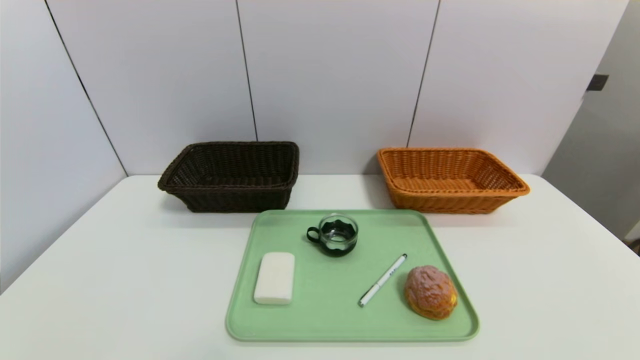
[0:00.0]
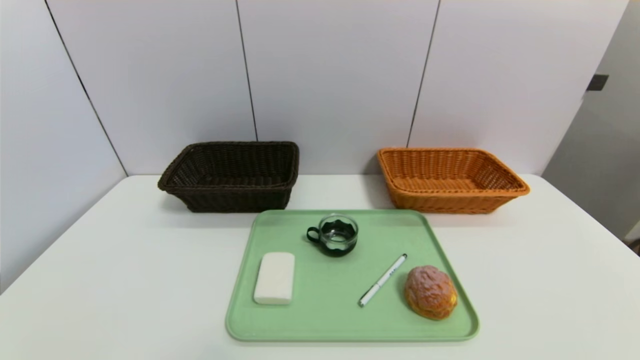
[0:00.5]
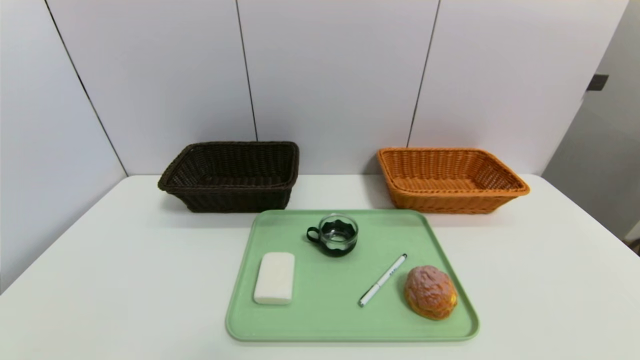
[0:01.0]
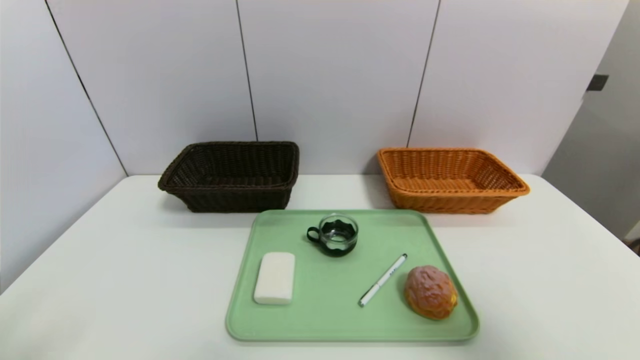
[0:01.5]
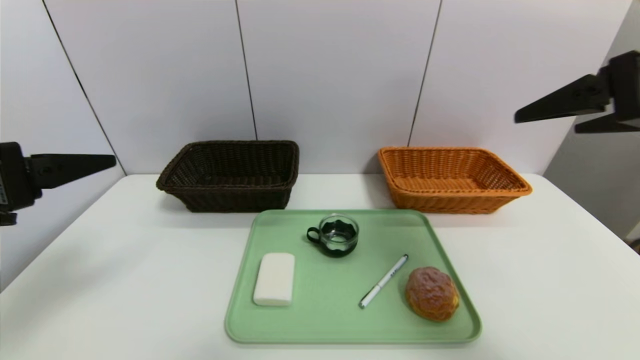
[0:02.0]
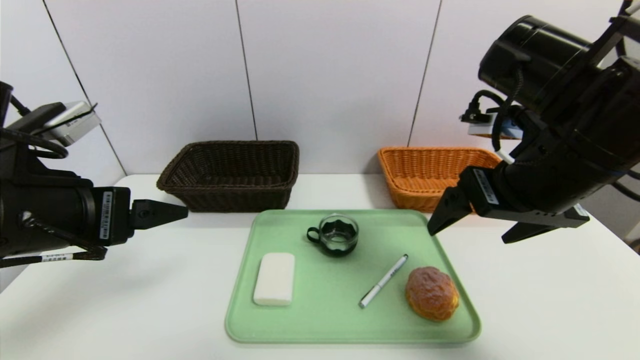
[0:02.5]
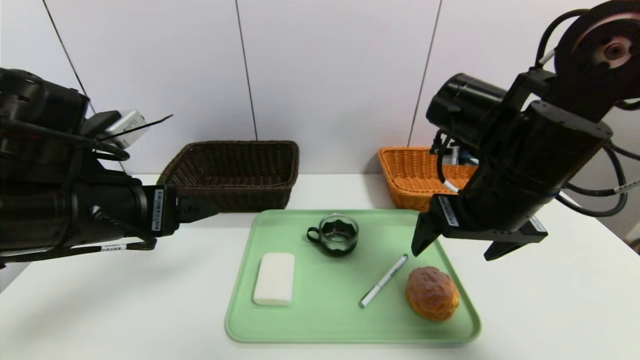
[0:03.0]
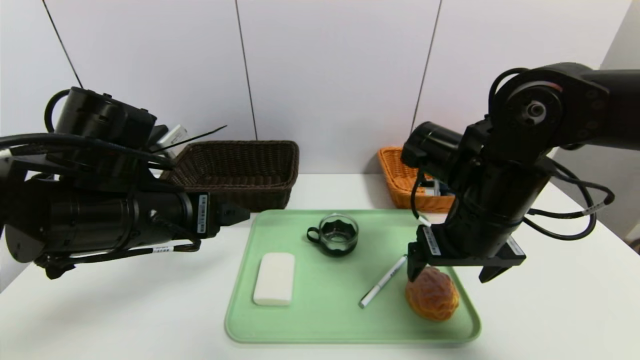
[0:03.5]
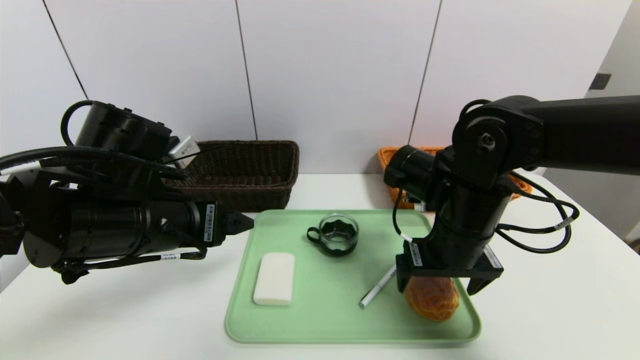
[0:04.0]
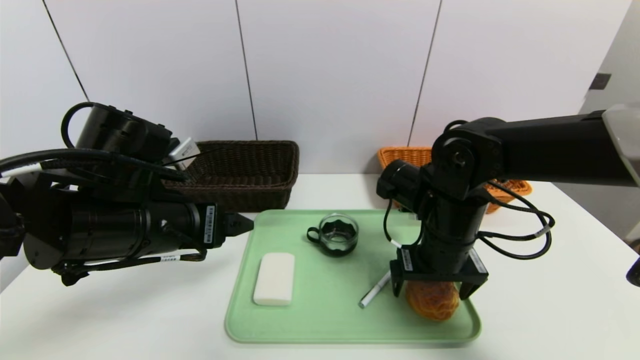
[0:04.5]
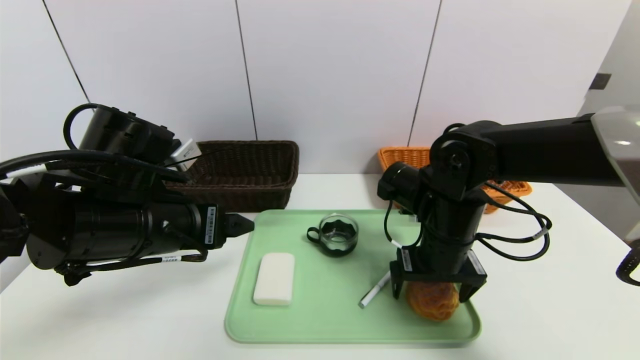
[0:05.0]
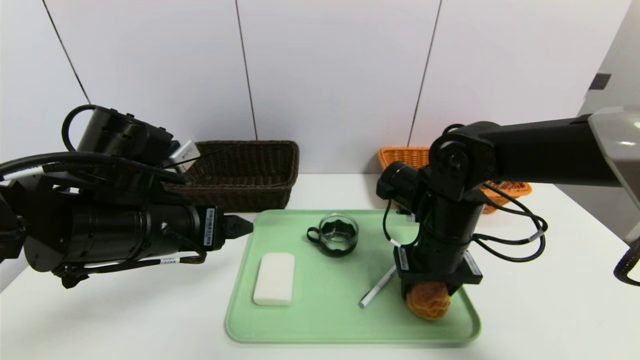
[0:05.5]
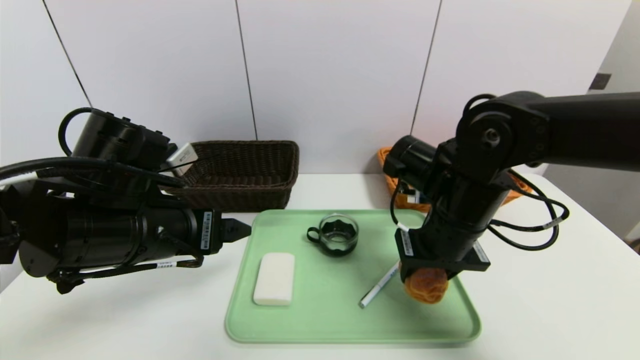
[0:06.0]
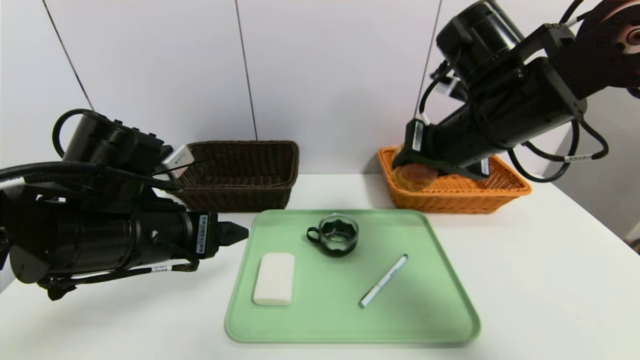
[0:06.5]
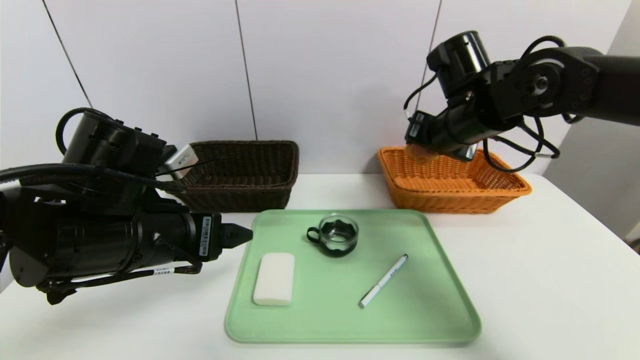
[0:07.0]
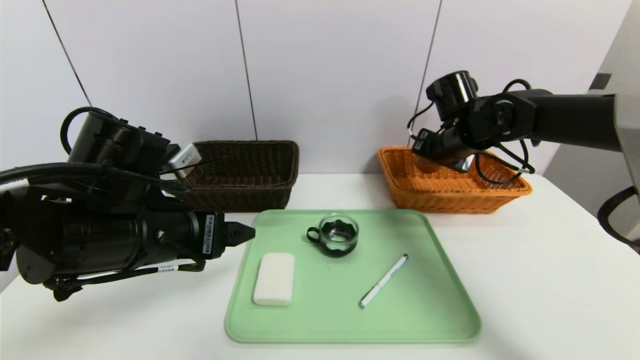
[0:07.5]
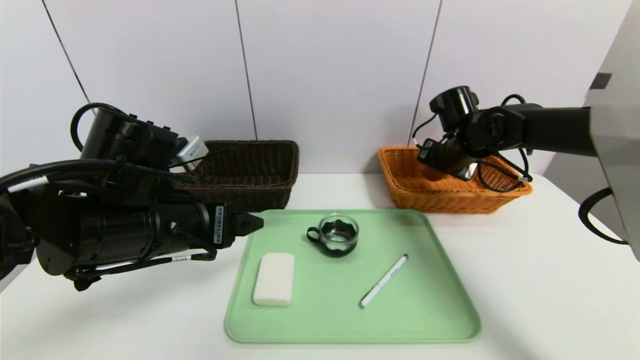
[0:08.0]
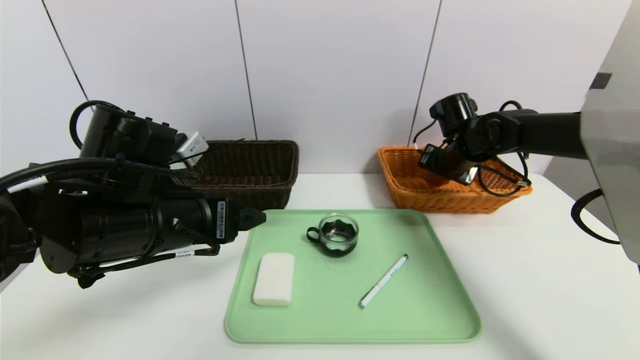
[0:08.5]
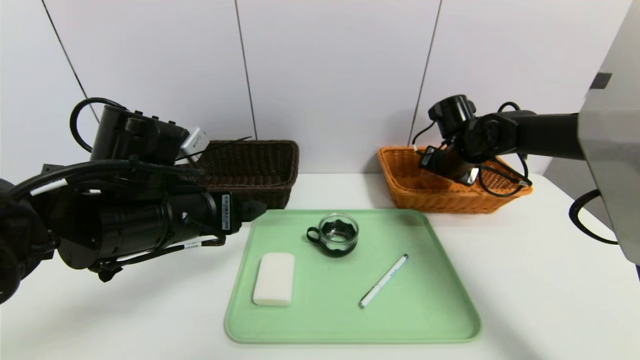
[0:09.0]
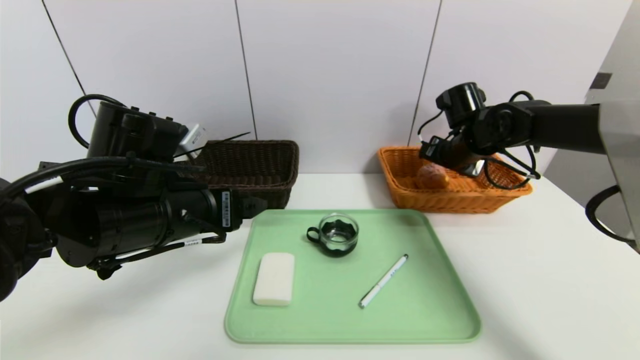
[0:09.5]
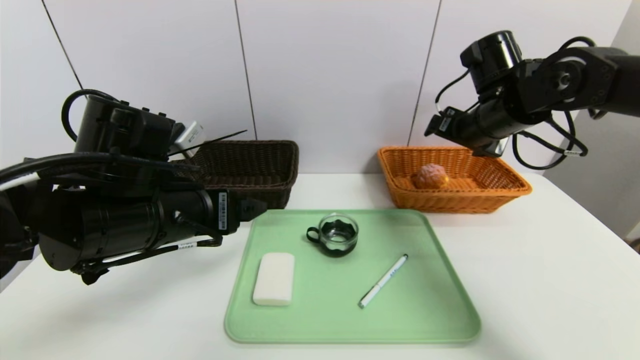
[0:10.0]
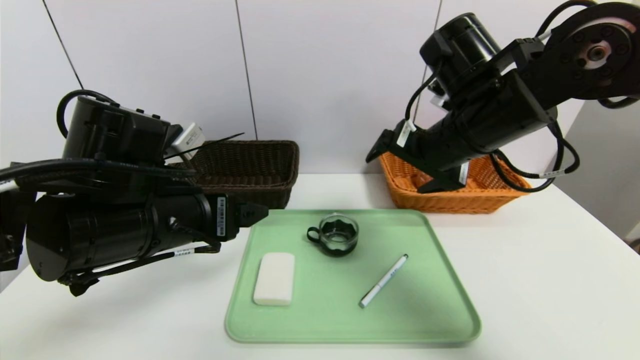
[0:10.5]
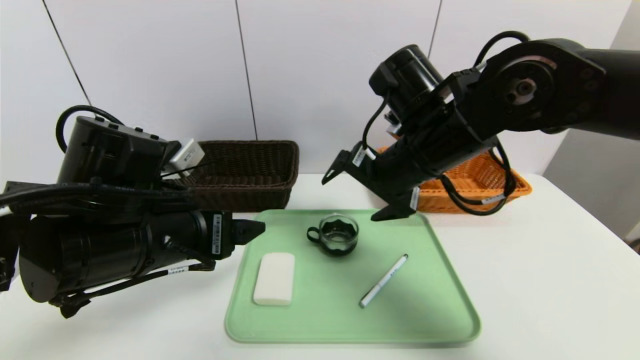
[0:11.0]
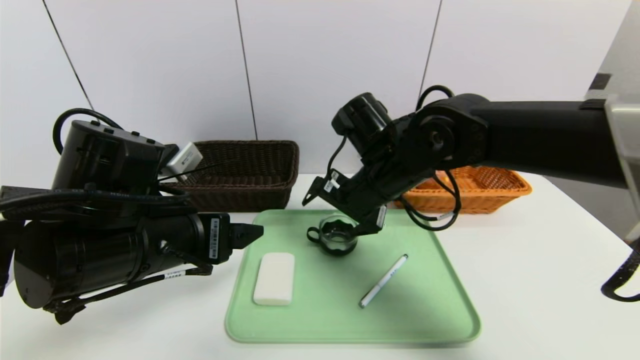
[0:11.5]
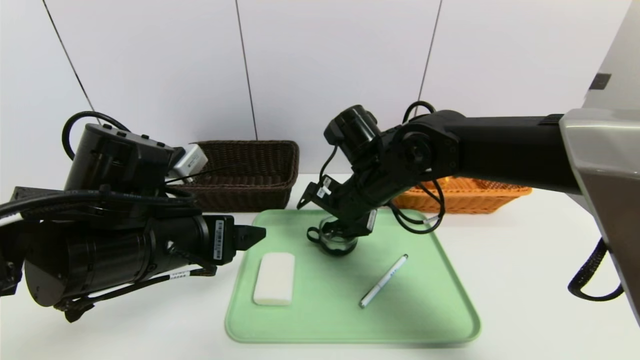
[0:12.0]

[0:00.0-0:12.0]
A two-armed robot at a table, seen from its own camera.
Task of the whole recording: place the food in the right basket with the right gripper, and place the non food items in the left basket with the left gripper.
Step, 0:00.0 to 0:09.0: Grasp the yellow cake and put it in the right basket.
0:00.0 to 0:02.0: The grippers both shift upward and forward by approximately 30 cm.
0:02.0 to 0:04.0: The left gripper goes approximately 15 cm to the right, downward and forward, while the right gripper moves downward, to the left and forward, some 25 cm.
0:04.0 to 0:06.0: The right gripper closes.
0:06.0 to 0:08.0: The right gripper moves forward and to the right, about 20 cm.
0:08.0 to 0:10.0: The right gripper travels upward and backward by approximately 10 cm, and opens up.
0:10.0 to 0:12.0: The right gripper is displaced to the left and downward by about 20 cm.

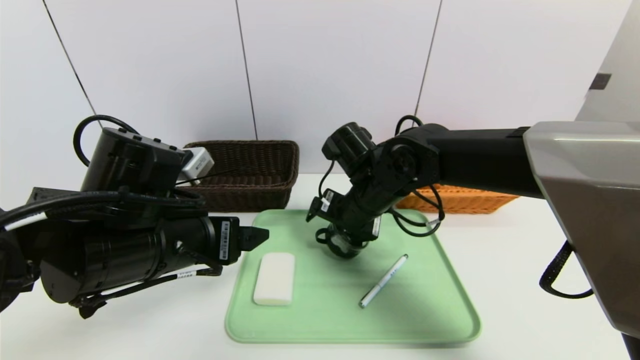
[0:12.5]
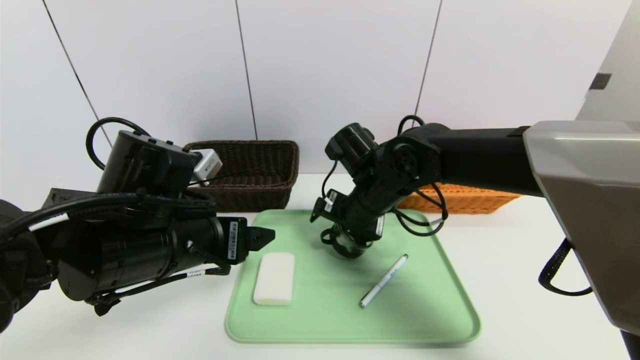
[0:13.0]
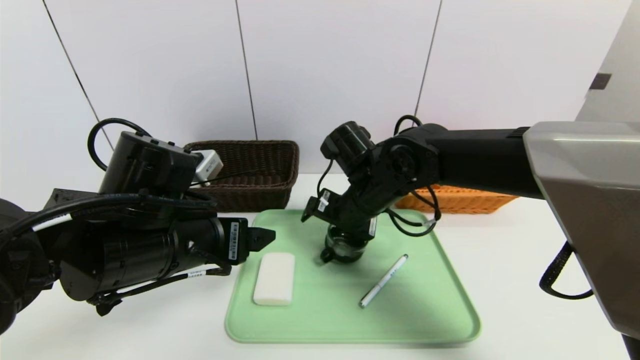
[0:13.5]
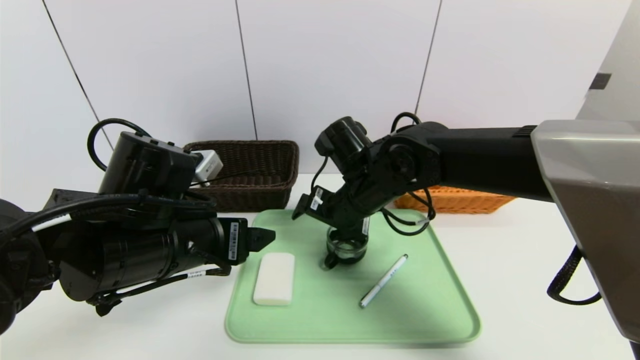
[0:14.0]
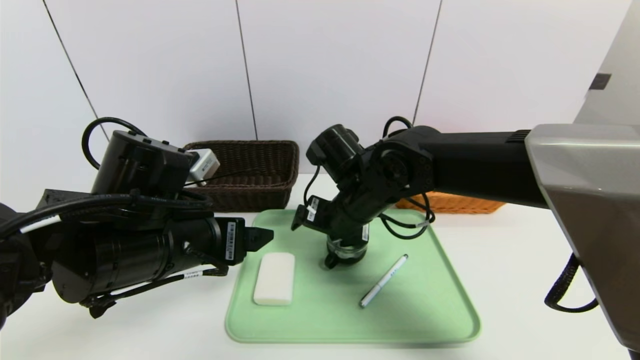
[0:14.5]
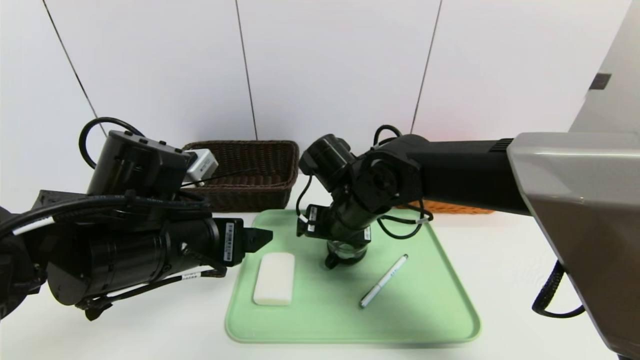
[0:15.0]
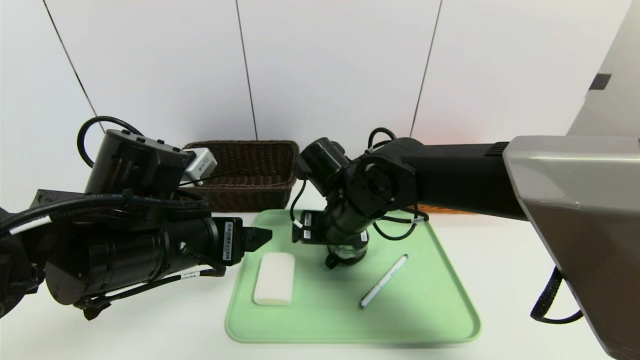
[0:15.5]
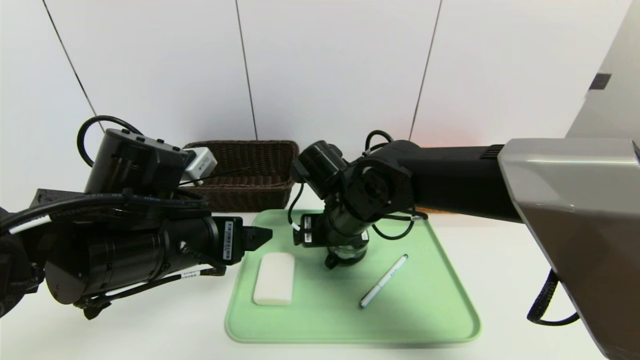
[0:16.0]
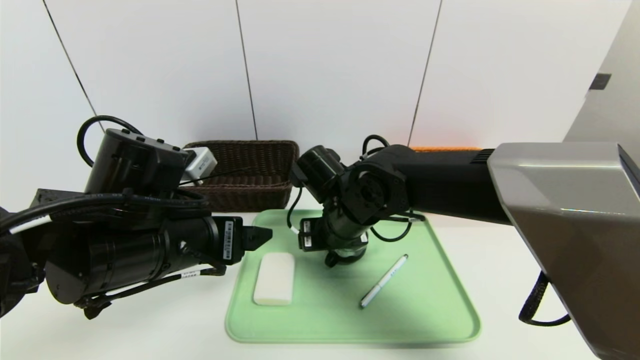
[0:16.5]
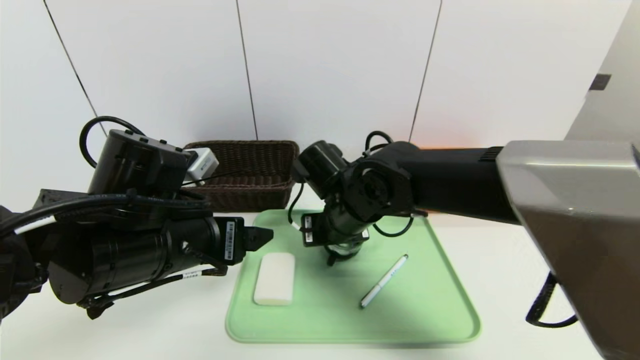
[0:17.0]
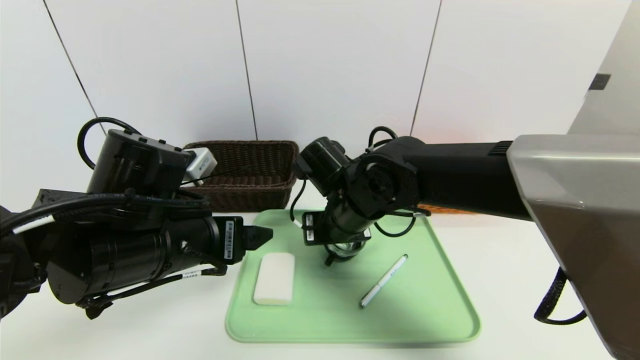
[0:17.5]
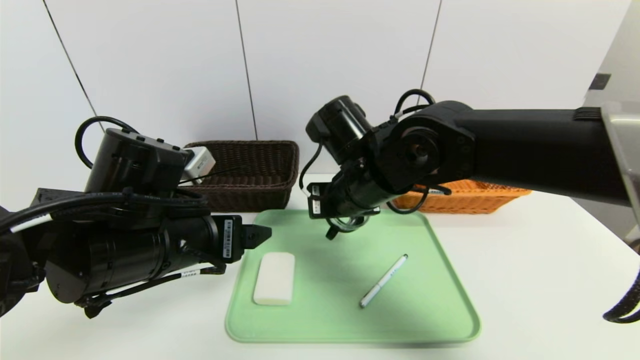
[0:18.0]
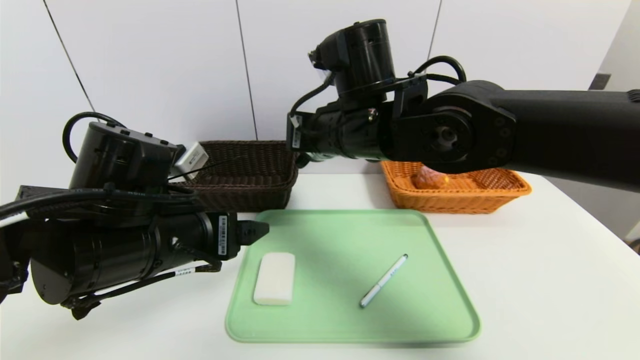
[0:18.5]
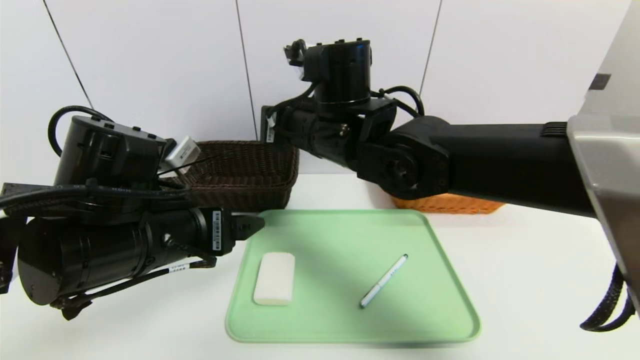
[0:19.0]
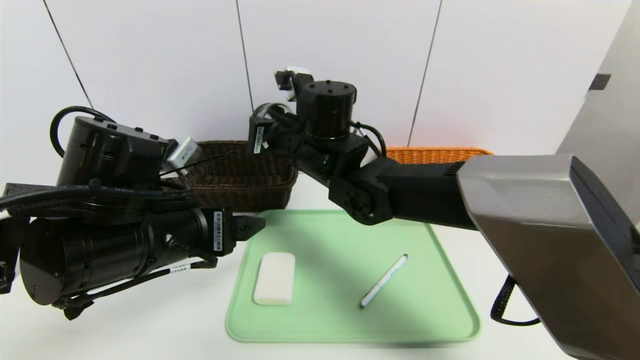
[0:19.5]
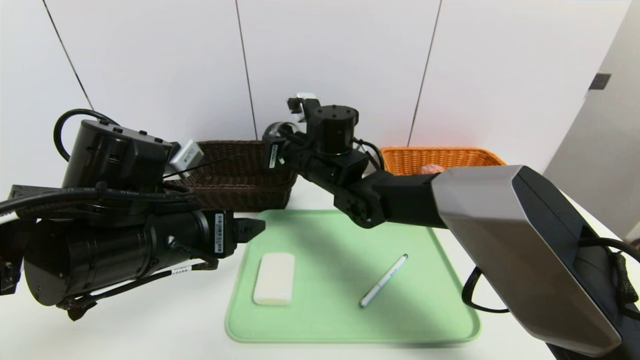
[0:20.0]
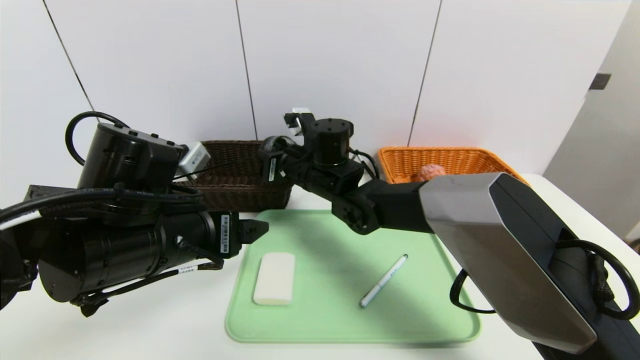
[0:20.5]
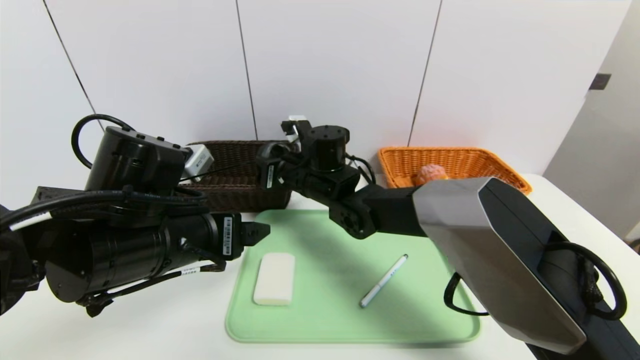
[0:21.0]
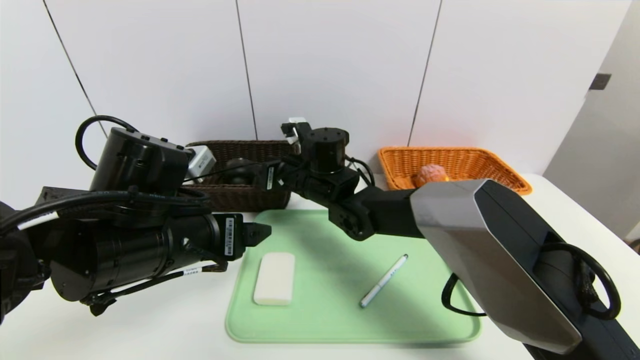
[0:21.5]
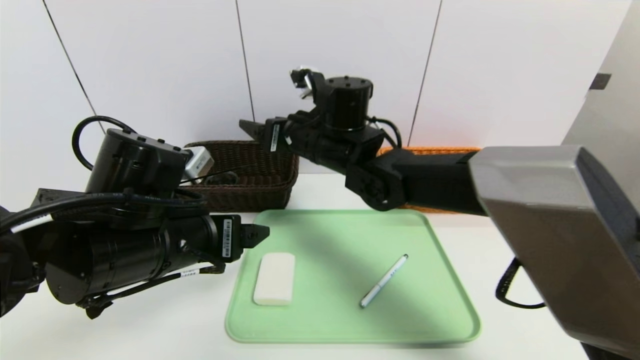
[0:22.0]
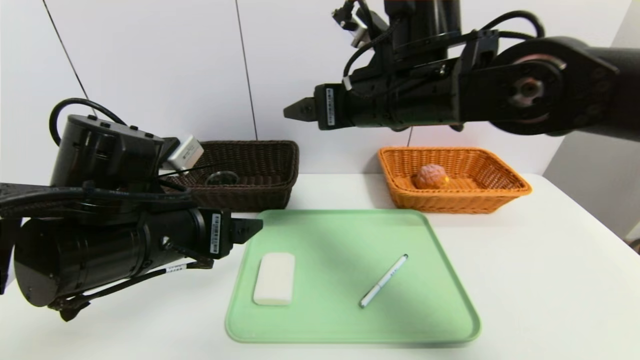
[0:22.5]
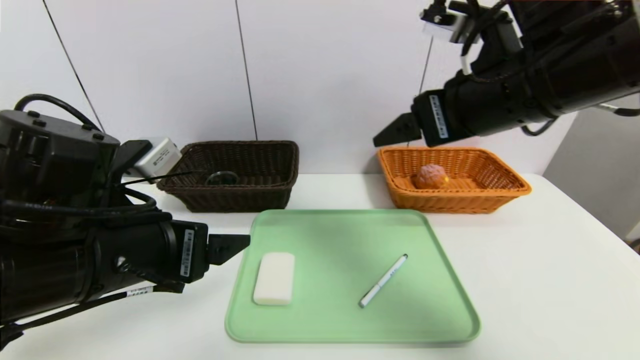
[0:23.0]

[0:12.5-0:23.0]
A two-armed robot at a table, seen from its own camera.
Task of the whole recording: place the food in the right basket with the right gripper, and place the non food items in the left basket with the left gripper.
0:12.5 to 0:14.5: There are only small adjustments of the grippers.
0:16.5 to 0:19.0: The right gripper travels upward by approximately 10 cm, and closes.
0:19.0 to 0:21.0: The right gripper goes approximately 15 cm downward and forward.
0:21.0 to 0:23.0: The right gripper moves upward, to the right and backward, roughly 30 cm, and opens its fingers. The left gripper changes place by roughly 5 cm.
